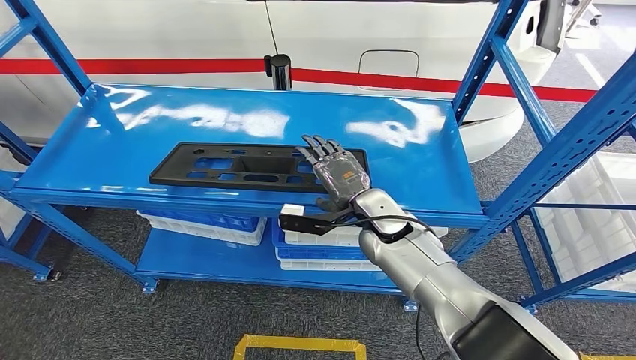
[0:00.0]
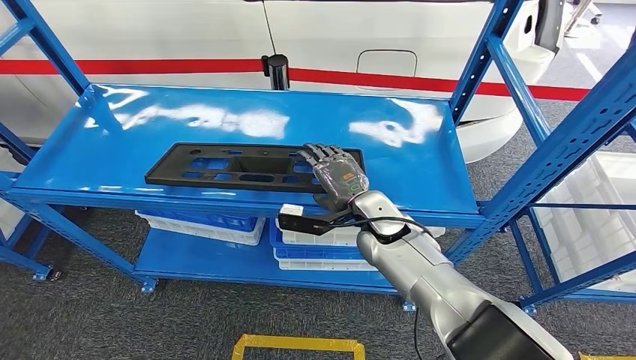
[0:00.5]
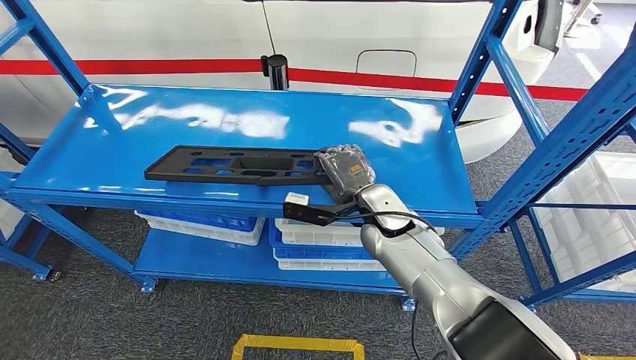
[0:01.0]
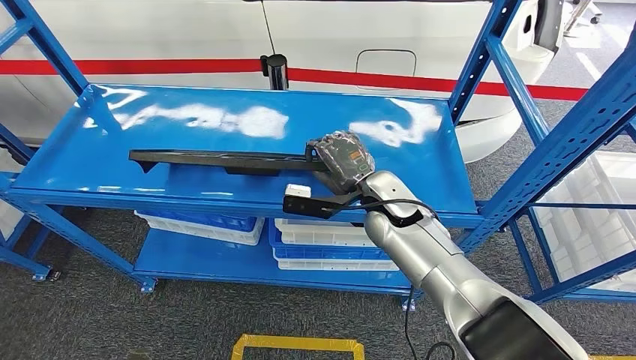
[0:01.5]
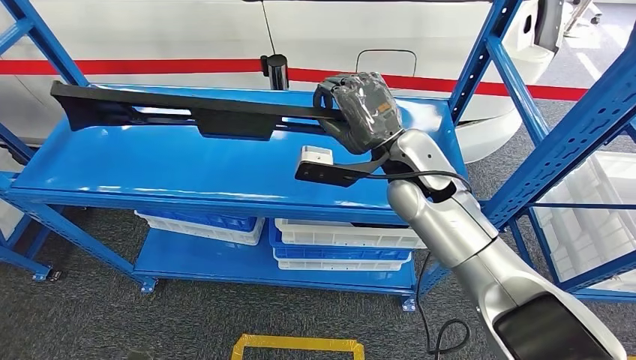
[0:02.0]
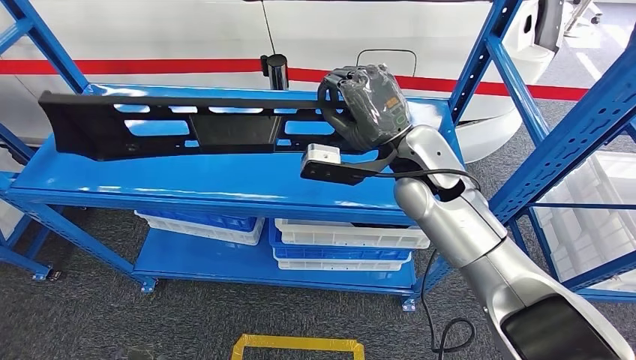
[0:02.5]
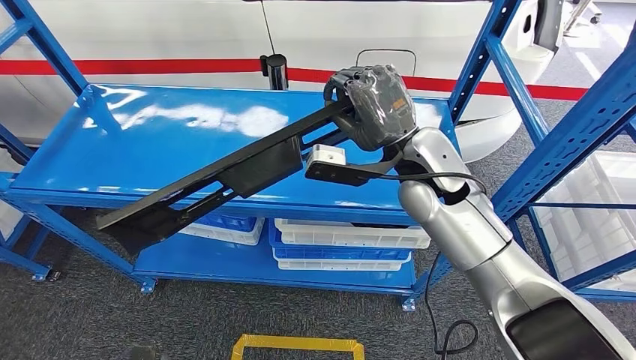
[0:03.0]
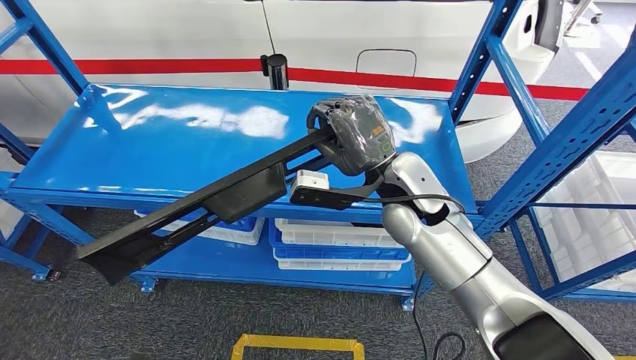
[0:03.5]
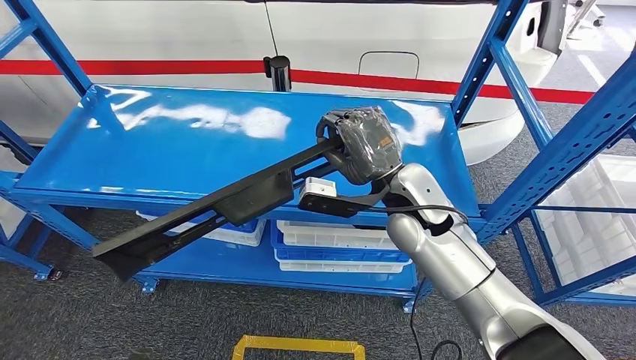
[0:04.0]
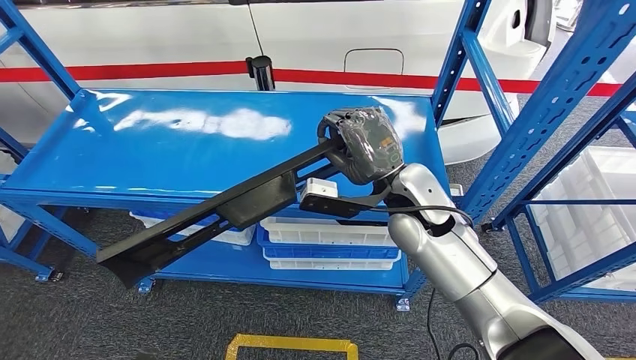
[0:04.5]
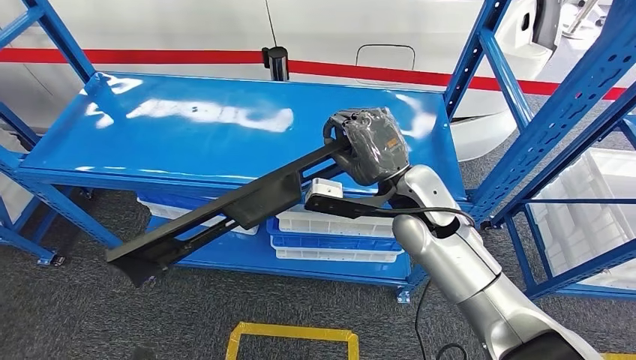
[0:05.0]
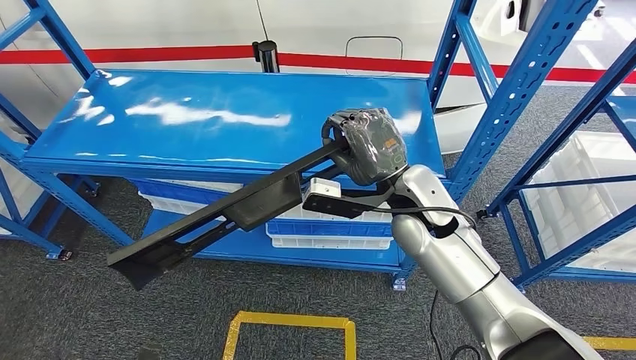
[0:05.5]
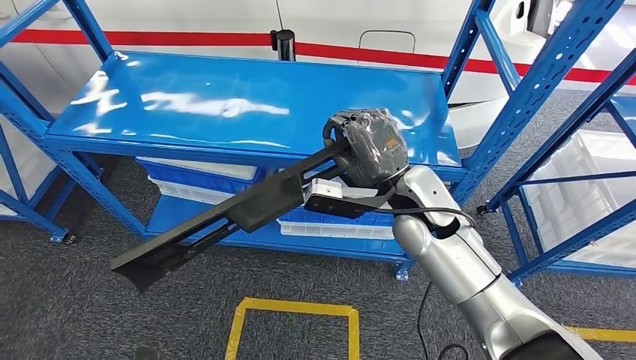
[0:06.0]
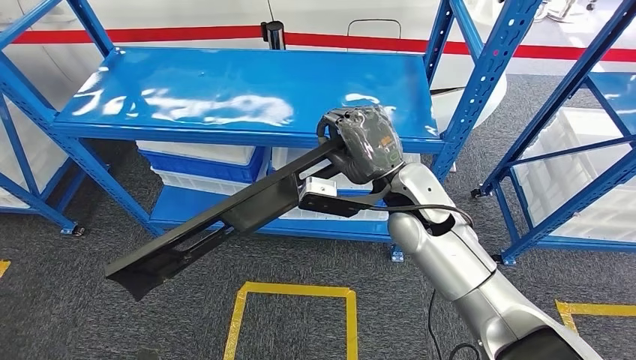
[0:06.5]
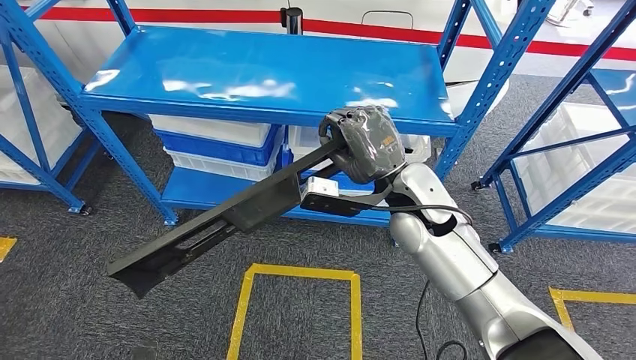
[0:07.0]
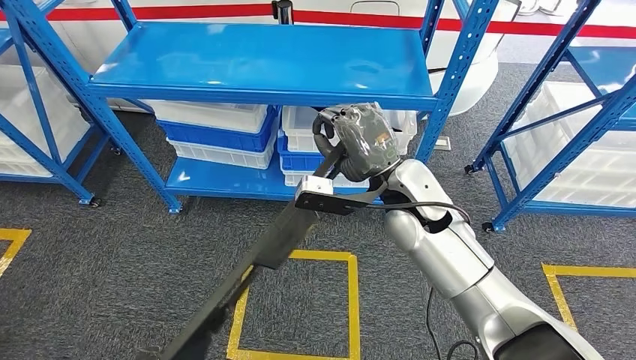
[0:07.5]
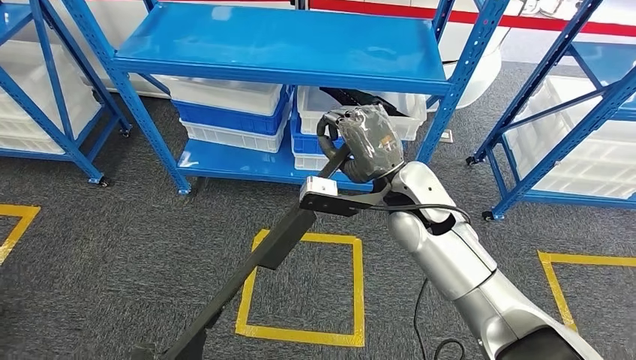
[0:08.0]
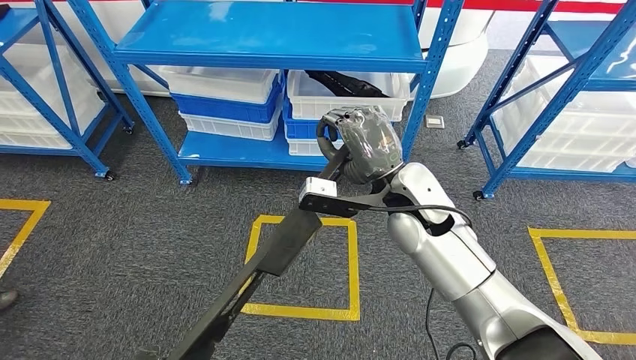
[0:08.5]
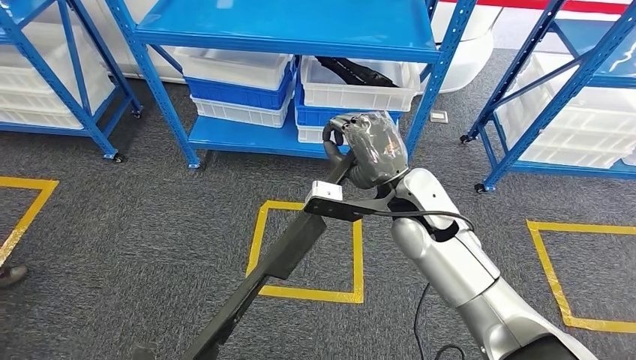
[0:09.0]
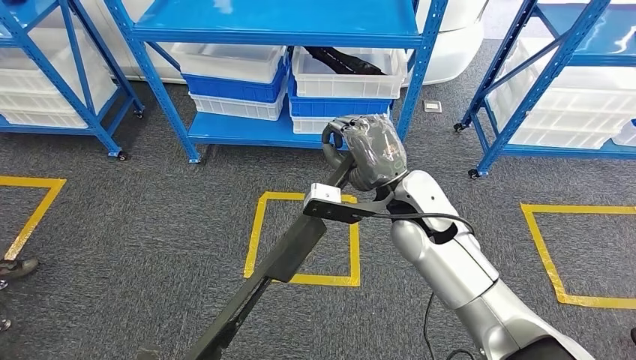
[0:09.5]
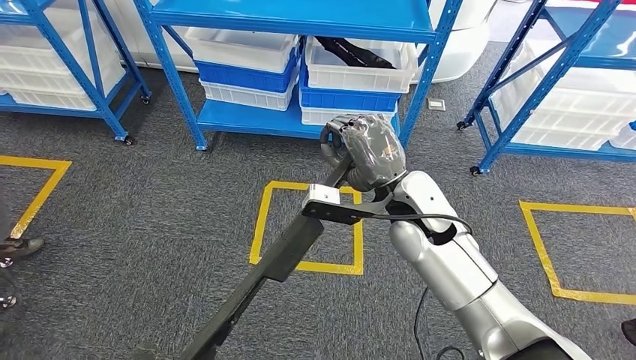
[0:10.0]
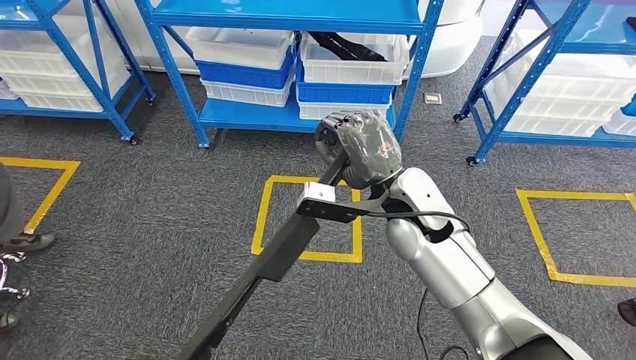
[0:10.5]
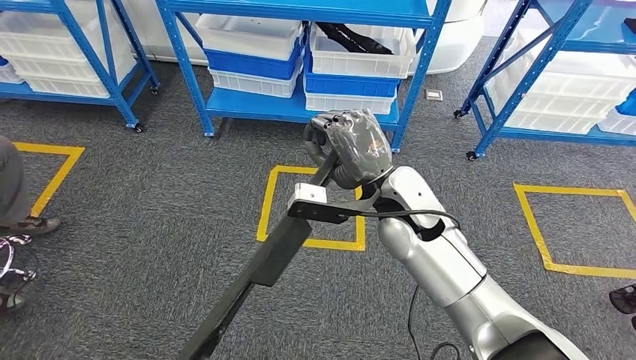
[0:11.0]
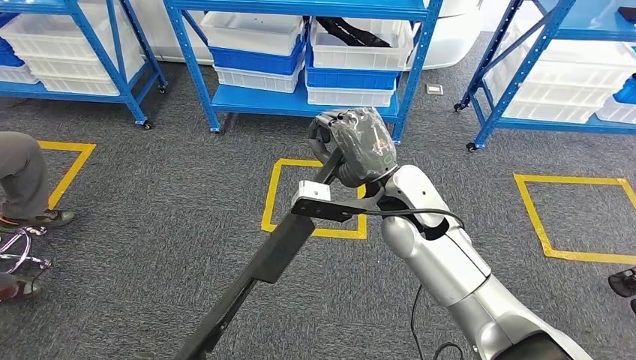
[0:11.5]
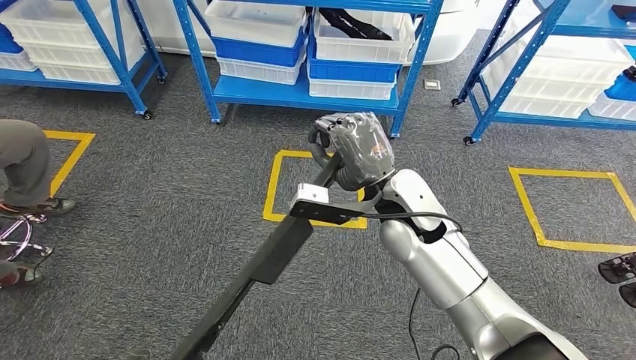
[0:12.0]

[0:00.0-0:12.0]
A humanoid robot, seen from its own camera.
Step, 0:00.0 to 0:02.0: Pick up the large material from the shelf.

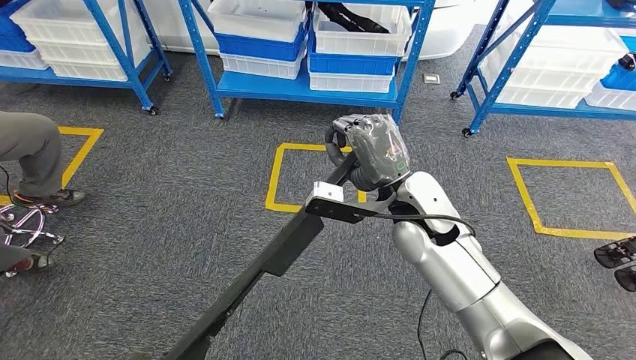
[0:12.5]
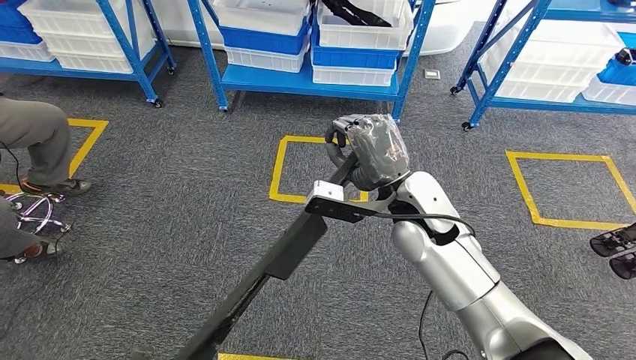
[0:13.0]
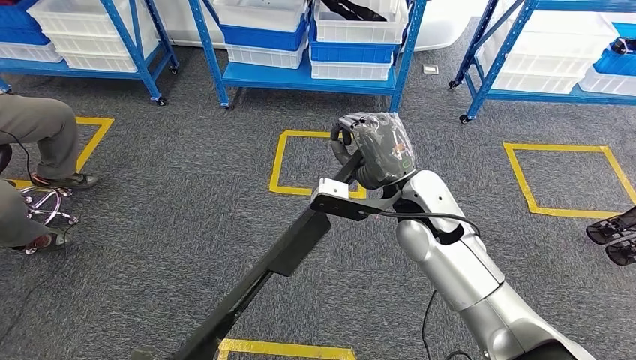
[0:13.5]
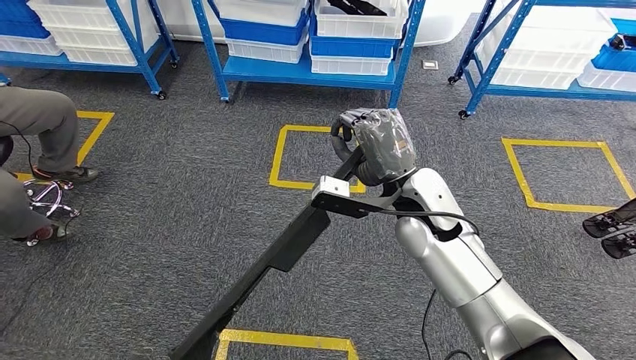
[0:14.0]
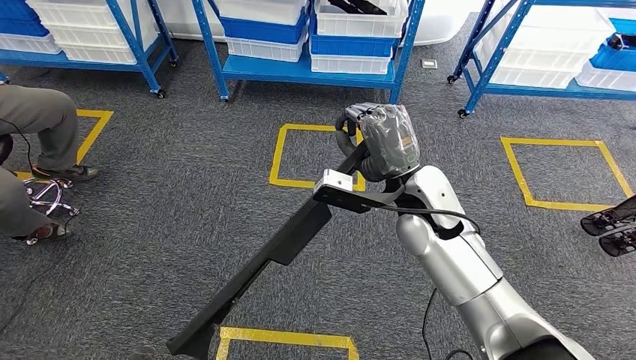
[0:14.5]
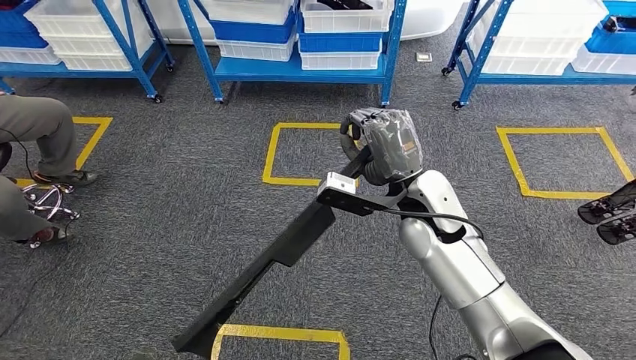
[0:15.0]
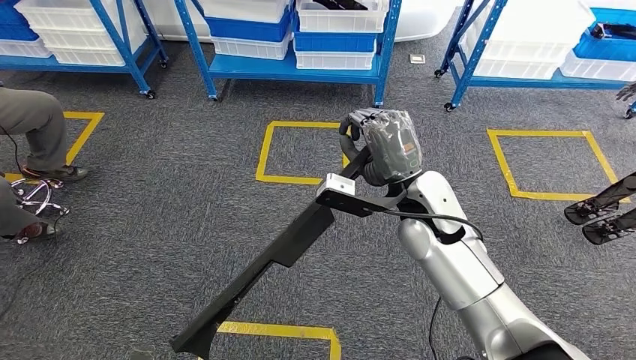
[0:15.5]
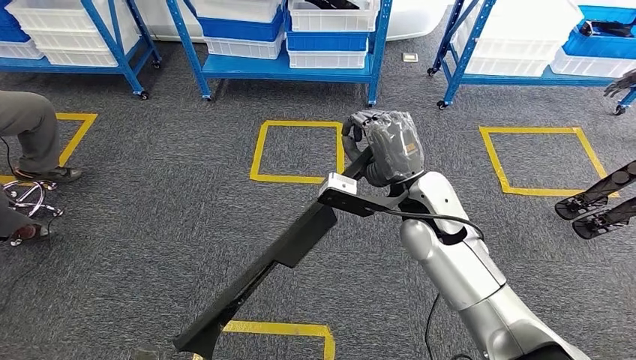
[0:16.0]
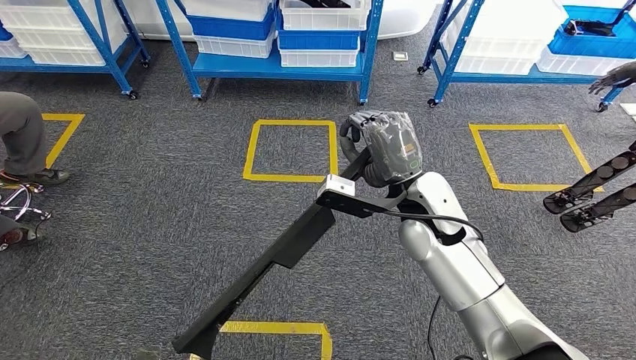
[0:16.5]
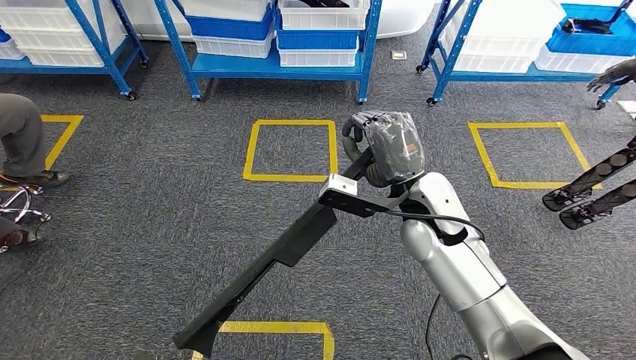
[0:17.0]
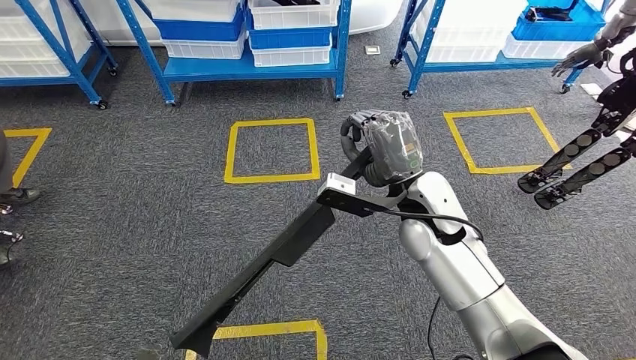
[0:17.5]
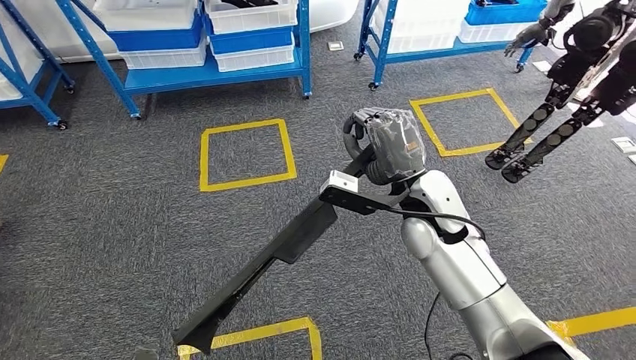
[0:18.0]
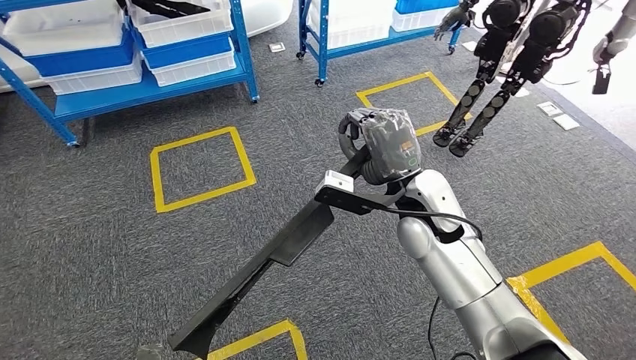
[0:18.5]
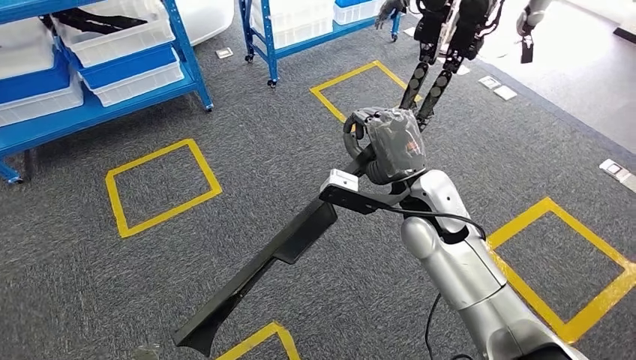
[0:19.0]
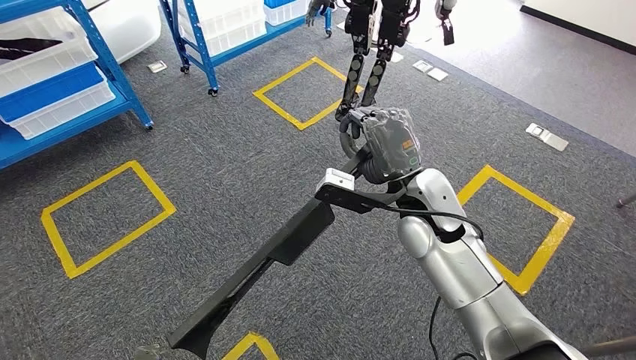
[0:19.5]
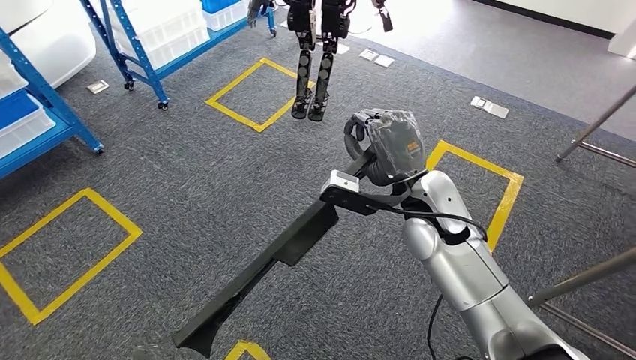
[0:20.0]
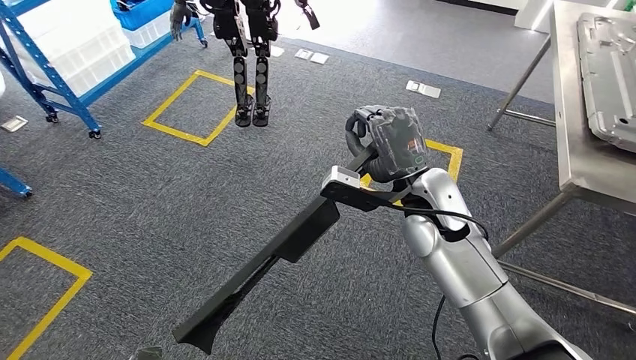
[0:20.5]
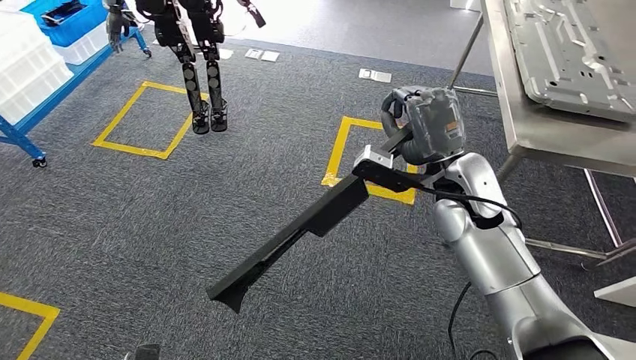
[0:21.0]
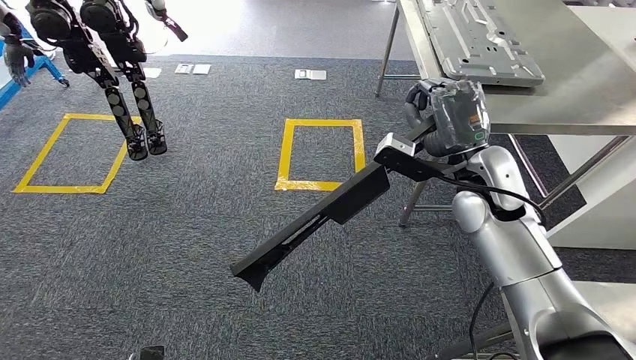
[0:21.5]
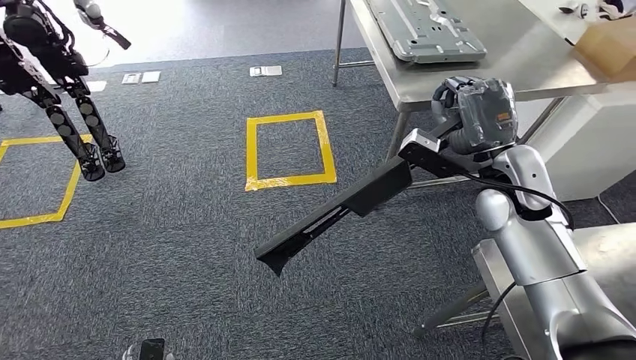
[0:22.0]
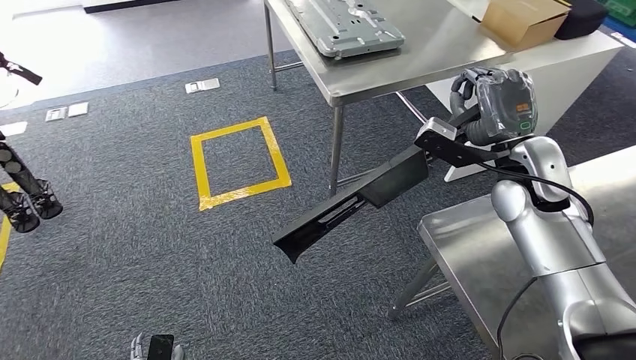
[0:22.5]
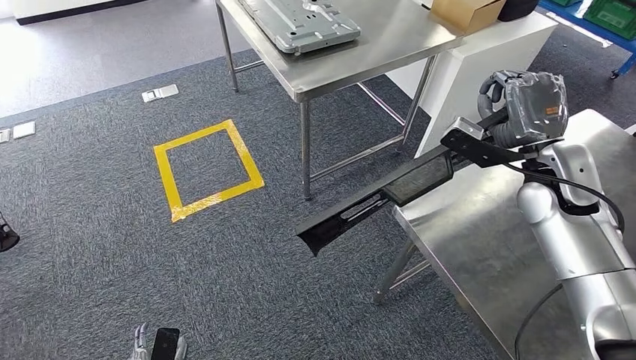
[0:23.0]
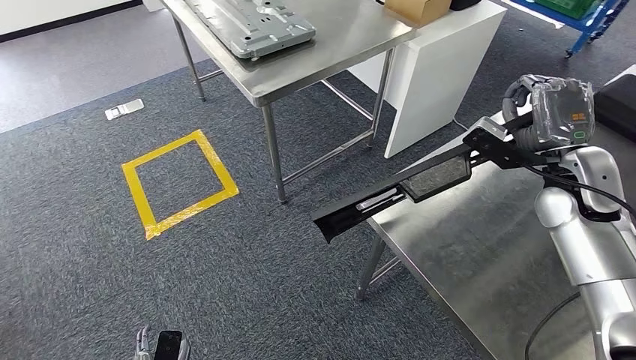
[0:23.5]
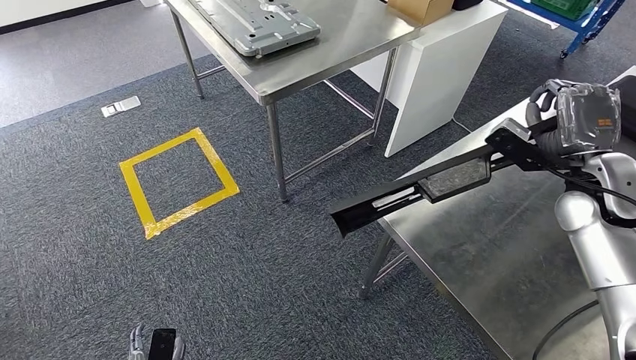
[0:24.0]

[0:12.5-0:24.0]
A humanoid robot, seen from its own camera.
Step, 0:12.5 to 0:22.5: Move the large material to the front of the workbench.
